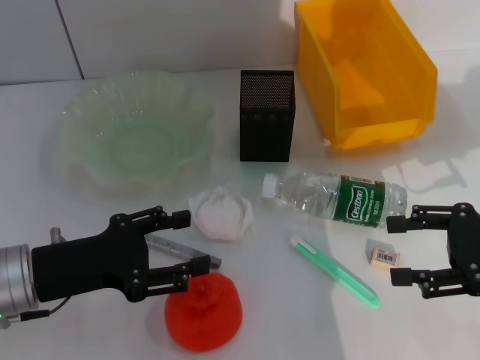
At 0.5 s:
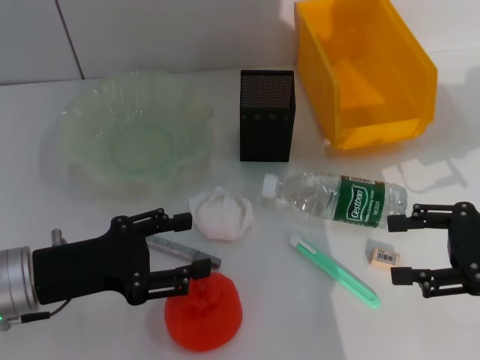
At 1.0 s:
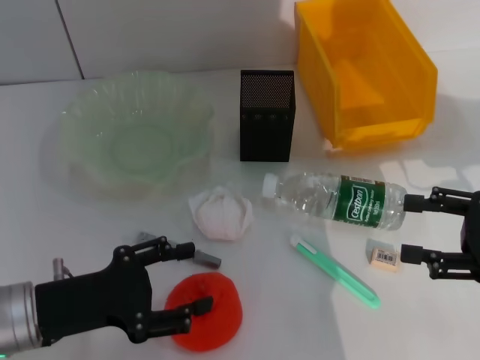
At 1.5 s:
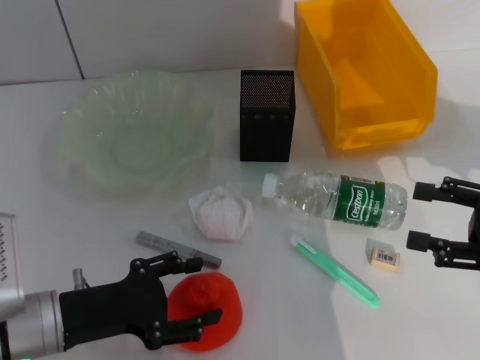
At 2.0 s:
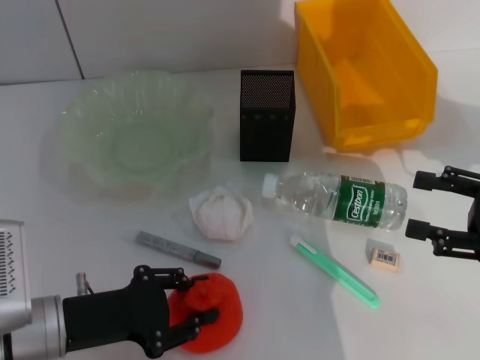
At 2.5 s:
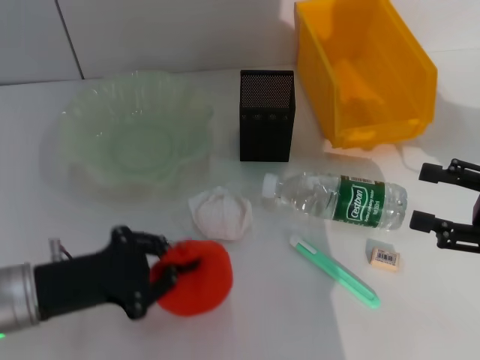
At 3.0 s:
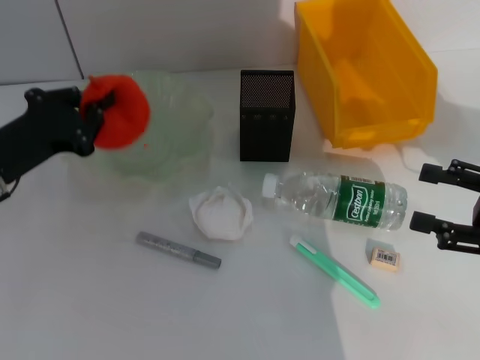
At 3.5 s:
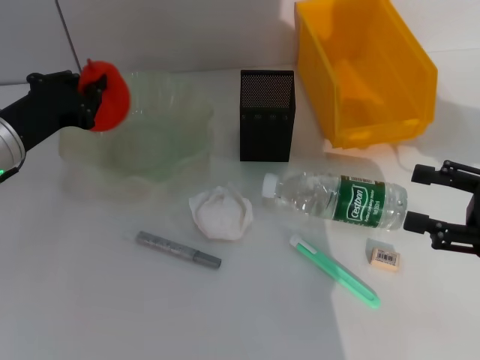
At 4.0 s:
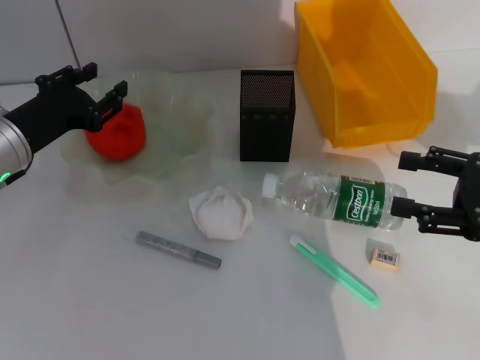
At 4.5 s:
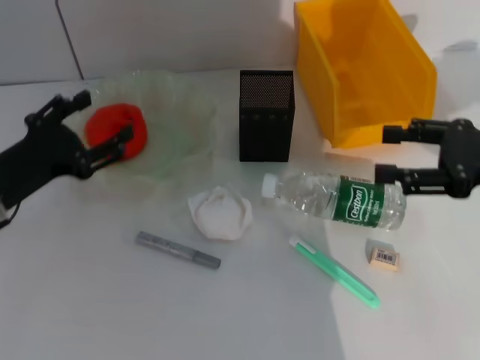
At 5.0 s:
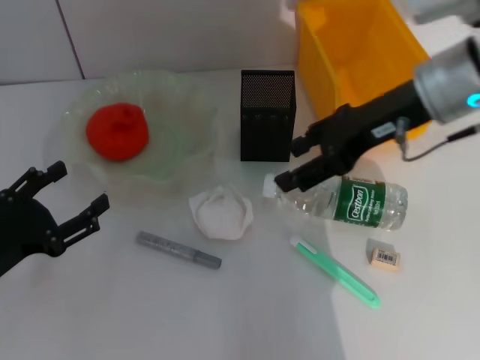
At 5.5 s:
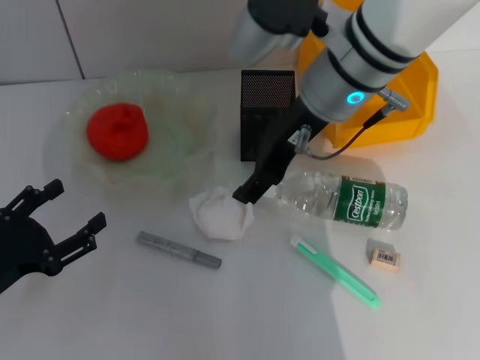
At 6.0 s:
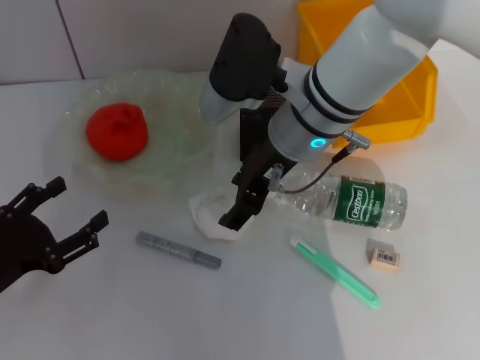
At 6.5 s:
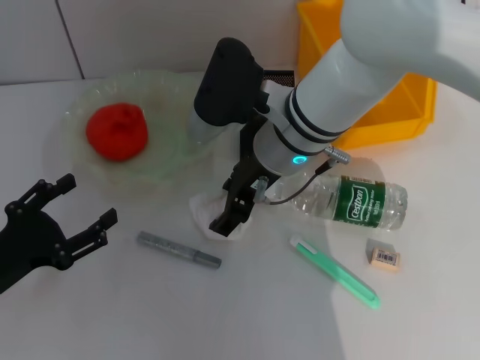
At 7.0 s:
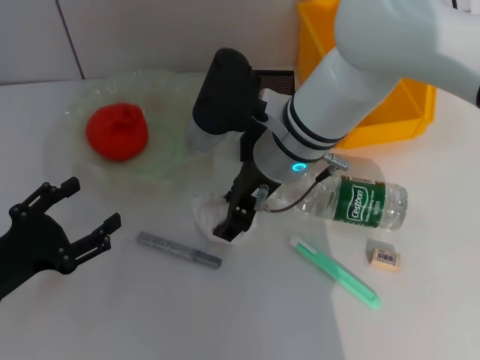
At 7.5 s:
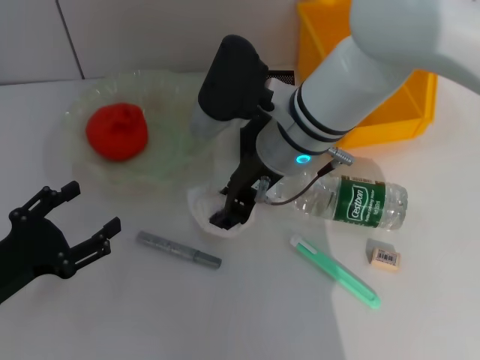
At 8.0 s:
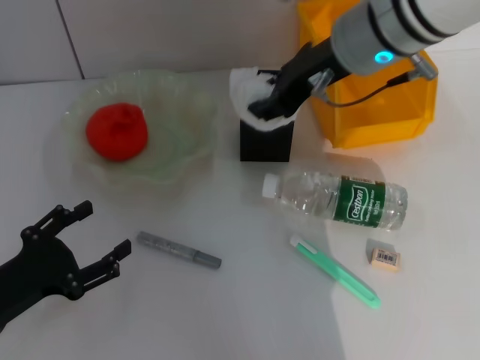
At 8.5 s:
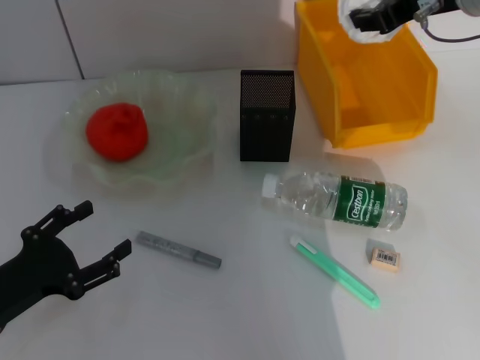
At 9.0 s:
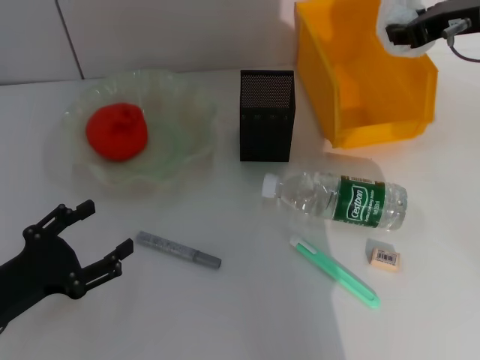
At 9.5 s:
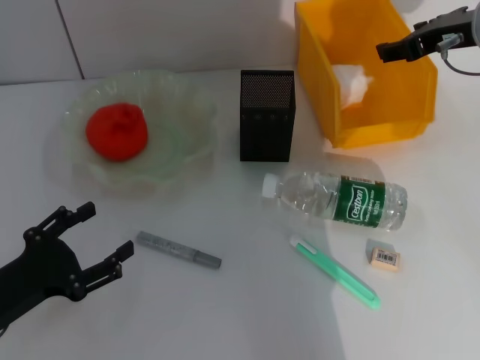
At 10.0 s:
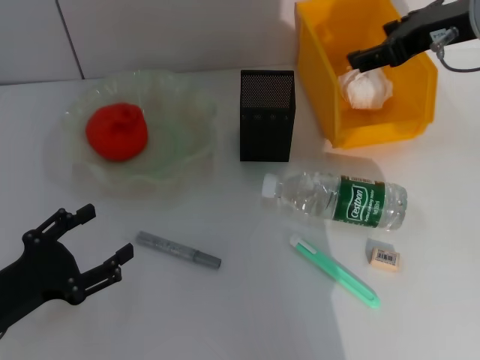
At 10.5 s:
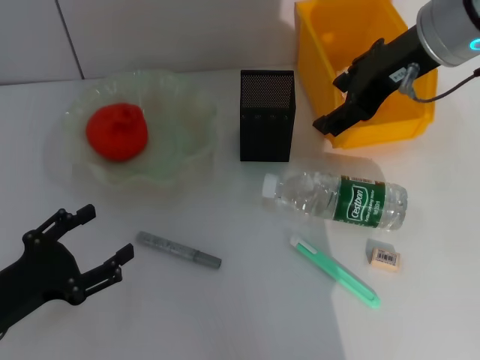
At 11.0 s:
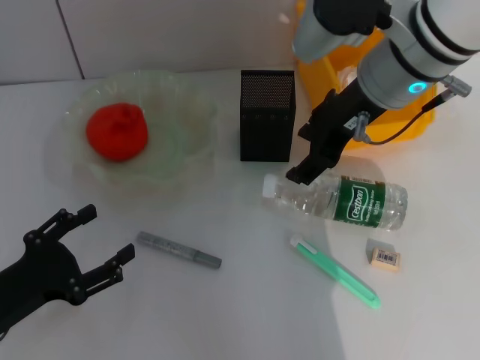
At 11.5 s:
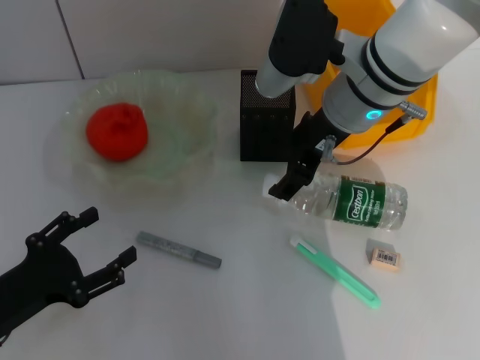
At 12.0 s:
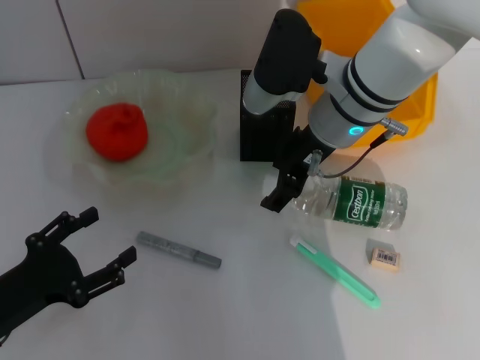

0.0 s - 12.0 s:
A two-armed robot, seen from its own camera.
Step, 0.0 s - 1.5 s: Grab the orange with the left hand.
Step, 2.5 s - 4.0 s: Place the orange into the fruit bowl with the left hand.
Step, 4.5 s - 7.0 s: Grab the paper ball with the right hand.
Step, 7.5 s - 10.0 s: Place the paper ball into the trash can with the right hand.
0.0 s - 2.0 s: The left gripper ends up approximately 5 cm from where it was.
2.0 s - 4.0 s: The left gripper travels forward and upward by approximately 15 cm, and closes, then opens again.
4.0 s - 6.0 s: The right gripper travels to the left and forward by approximately 30 cm. The left gripper is displaced backward by roughly 15 cm, and opens.
6.0 s - 8.0 s: The right gripper is displaced upward and to the right by approximately 10 cm, and closes up.
8.0 s - 10.0 s: The right gripper heads to the right, covering about 10 cm, and opens up.
10.0 s - 12.0 s: The right gripper heads to the left and downward, covering approximately 15 cm.

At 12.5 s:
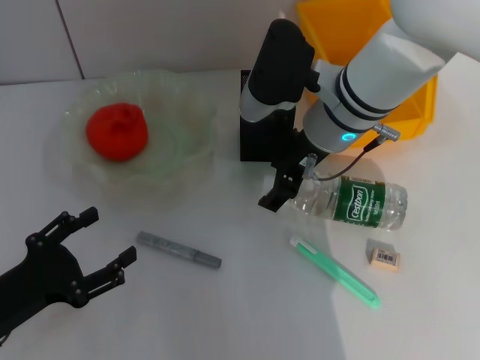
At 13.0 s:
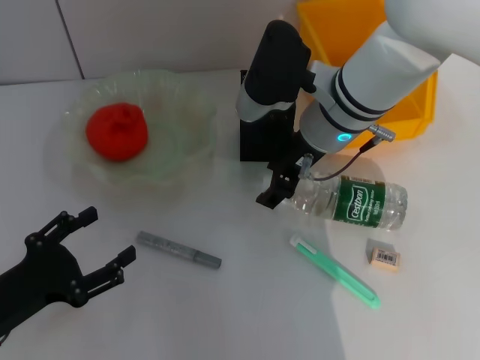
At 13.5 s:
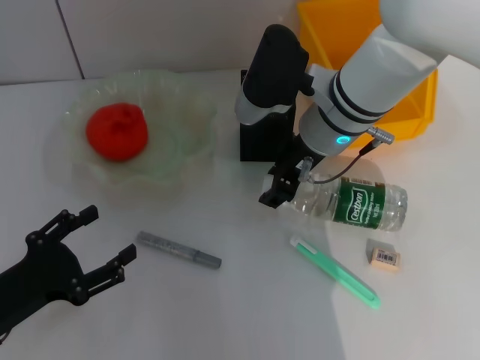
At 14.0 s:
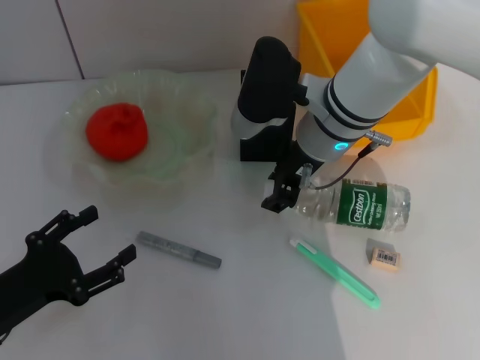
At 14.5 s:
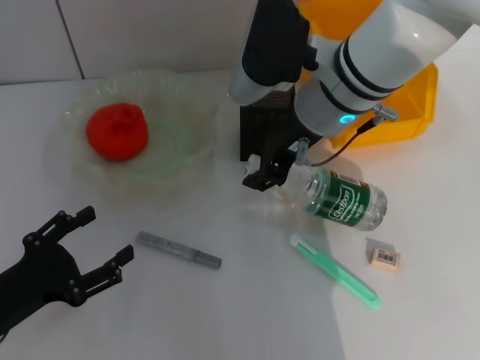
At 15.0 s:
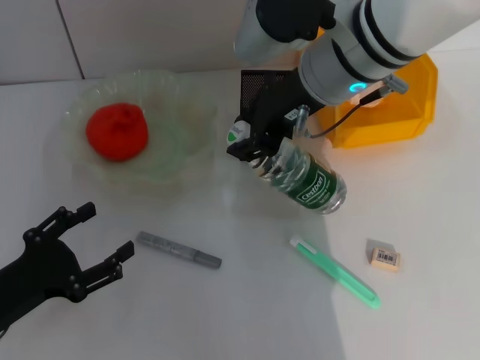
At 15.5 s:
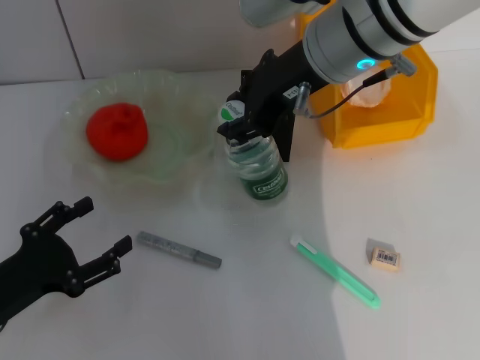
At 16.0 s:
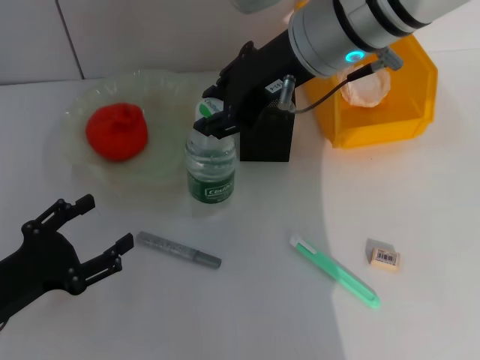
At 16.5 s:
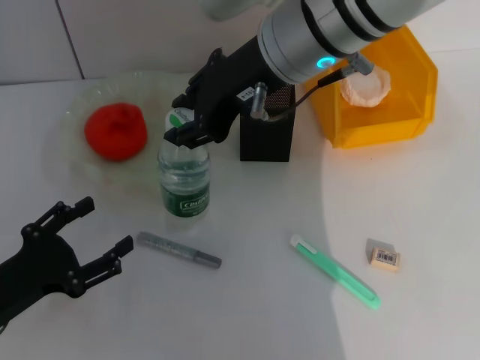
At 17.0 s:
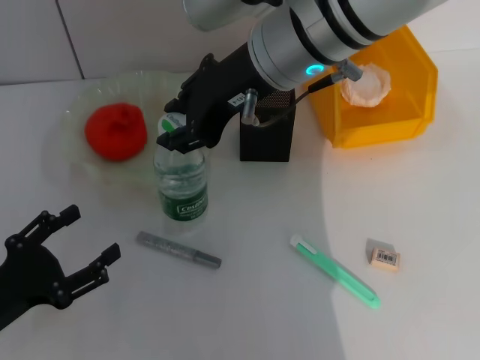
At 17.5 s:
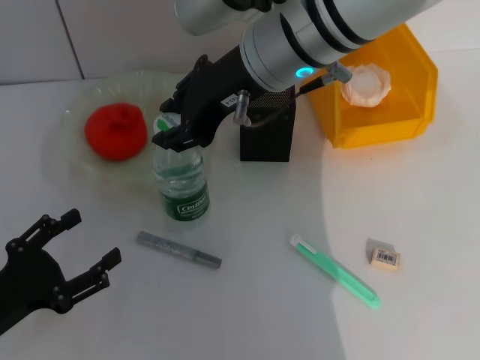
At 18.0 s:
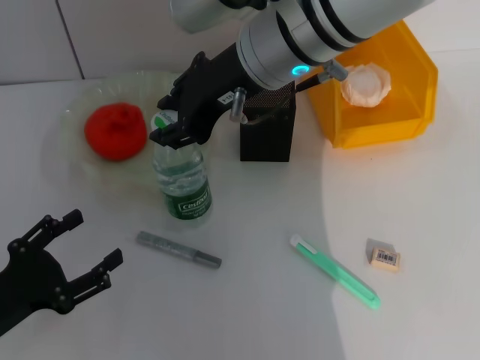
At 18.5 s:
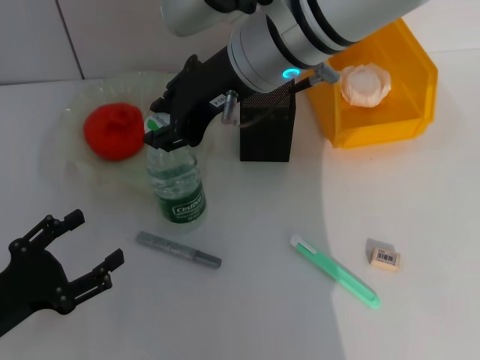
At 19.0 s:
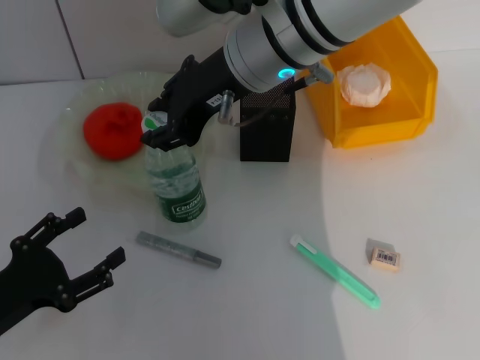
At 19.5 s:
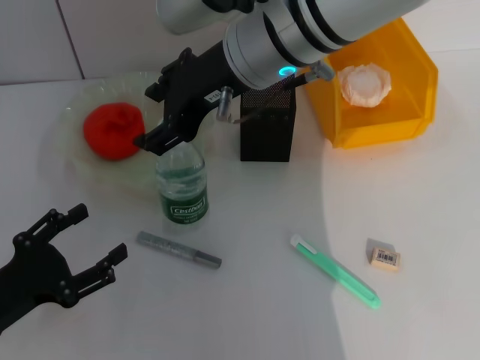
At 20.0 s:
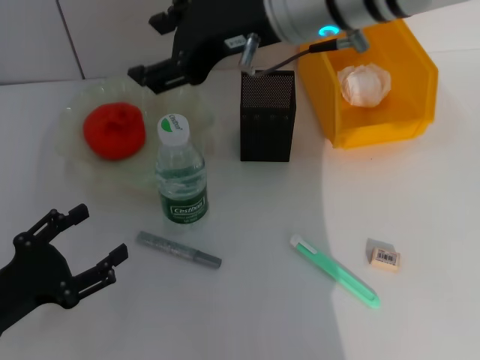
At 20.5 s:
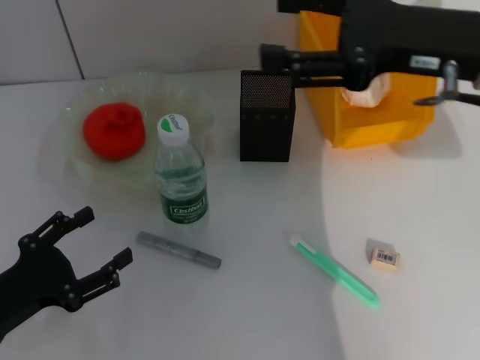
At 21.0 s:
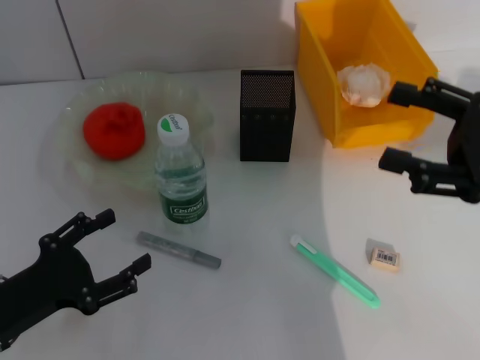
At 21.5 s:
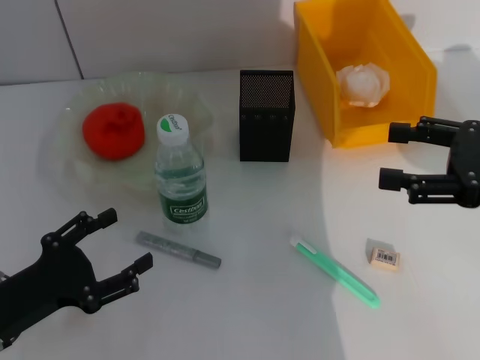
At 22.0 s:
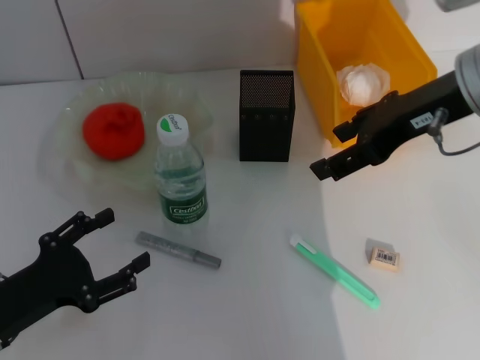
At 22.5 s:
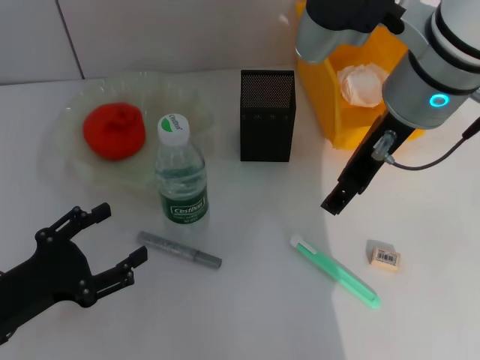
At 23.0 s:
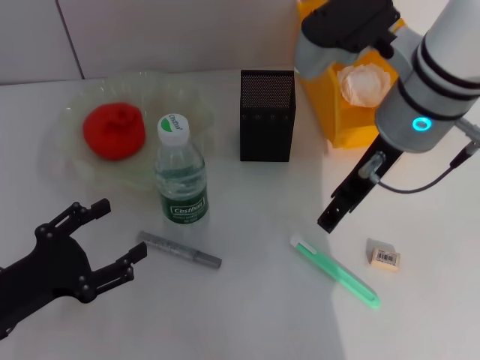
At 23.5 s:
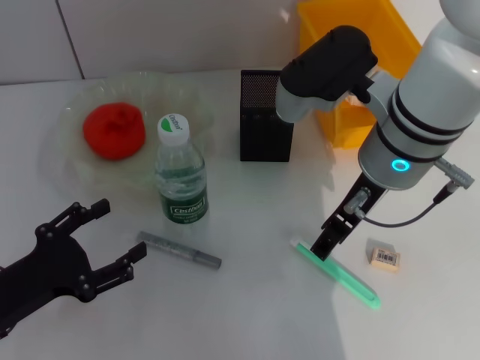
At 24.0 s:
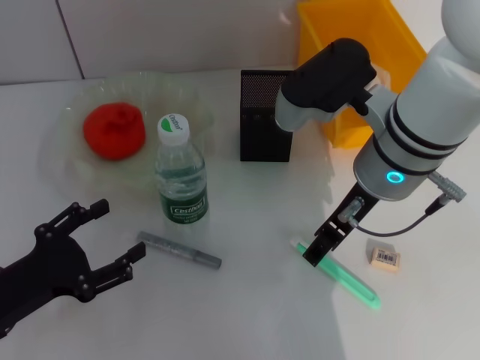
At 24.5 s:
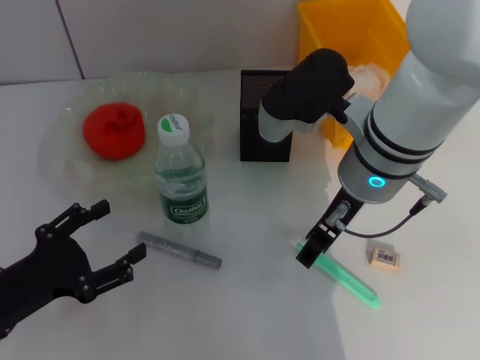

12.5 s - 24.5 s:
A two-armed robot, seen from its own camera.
Step, 14.0 s - 19.0 s: Place the water bottle on the table with the right hand.
12.5 s - 14.5 s: The right gripper closes up.
14.5 s - 16.5 s: The right gripper is displaced upward by approximately 5 cm.
16.5 s - 18.5 s: The grippers make only small movements.
18.5 s - 20.5 s: The right gripper goes roughly 20 cm to the right.
20.5 s - 22.5 s: The right gripper is displaced to the left by about 10 cm.
22.5 s - 24.5 s: The right gripper shifts approximately 5 cm downward.

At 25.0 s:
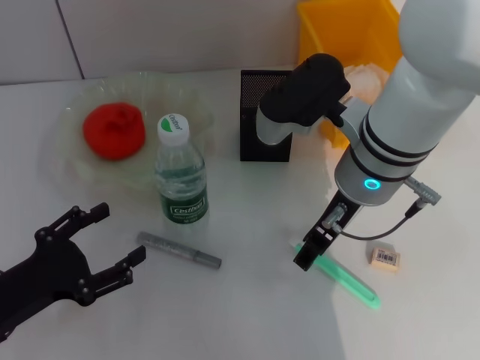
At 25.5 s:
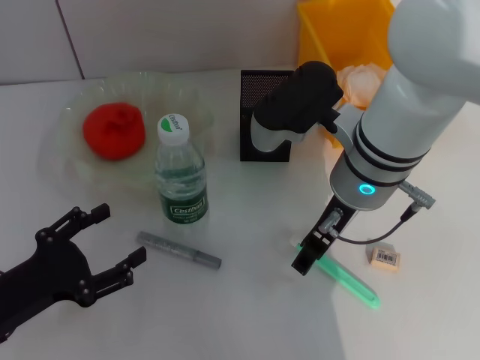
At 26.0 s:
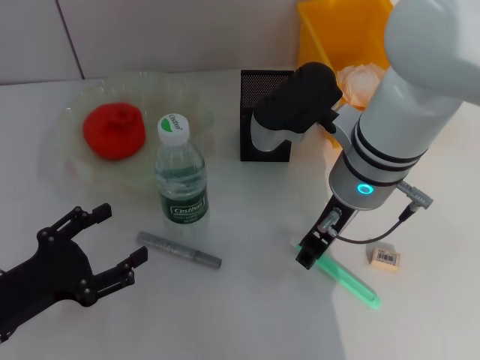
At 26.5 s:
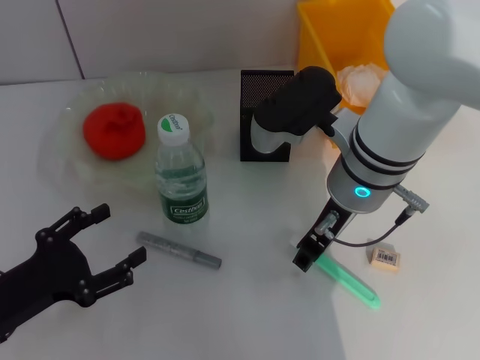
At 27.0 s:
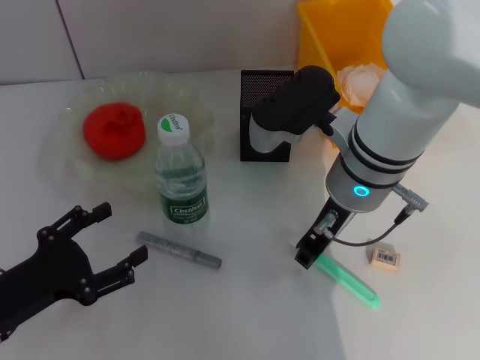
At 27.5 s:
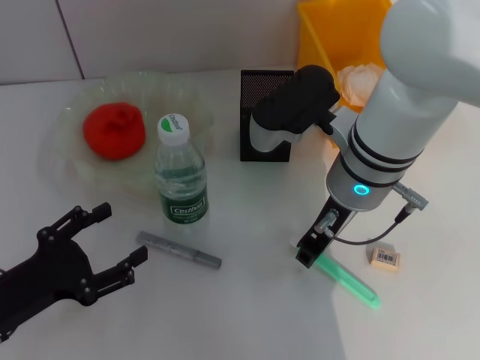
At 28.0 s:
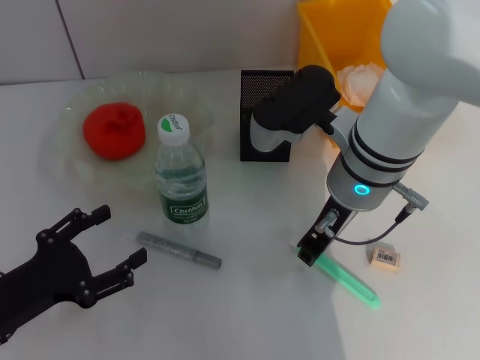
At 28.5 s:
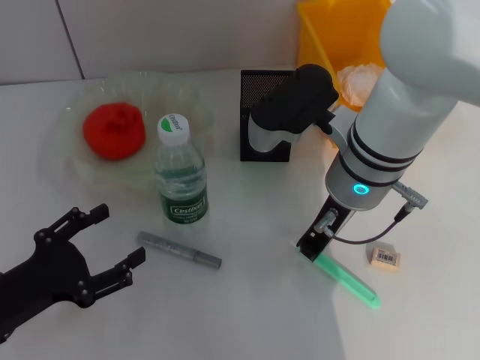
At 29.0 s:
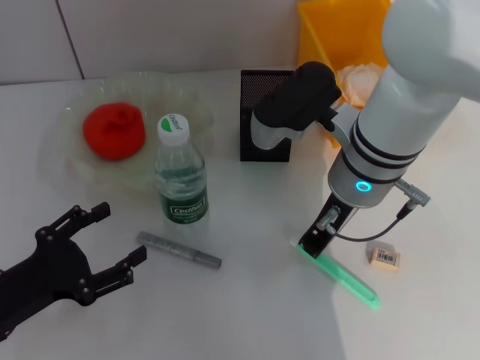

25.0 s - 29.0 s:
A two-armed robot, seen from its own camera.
25.0 s - 27.0 s: The right gripper closes.
27.0 s - 29.0 s: The right gripper closes its fingers.
